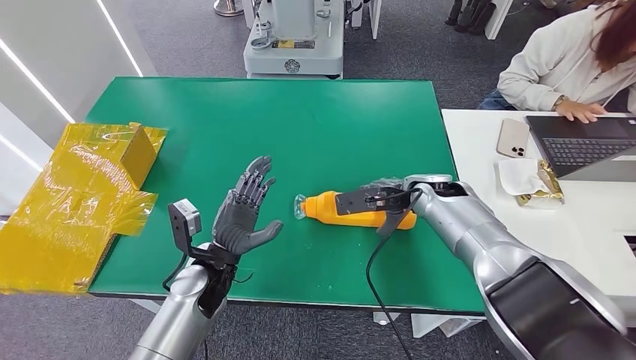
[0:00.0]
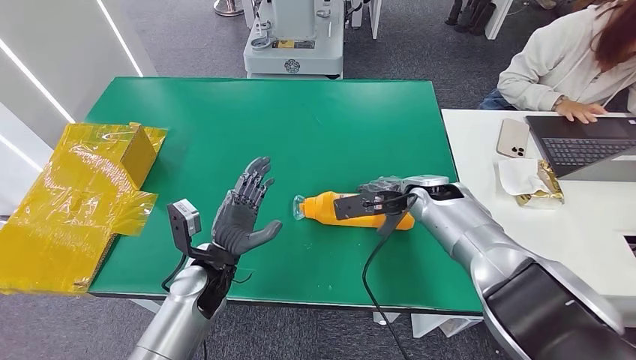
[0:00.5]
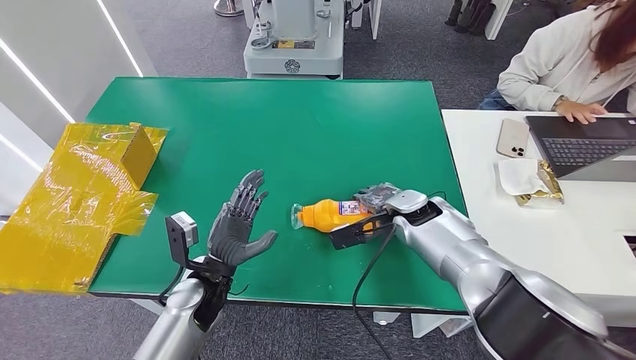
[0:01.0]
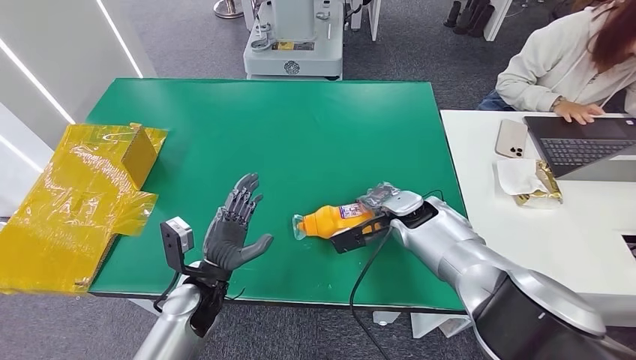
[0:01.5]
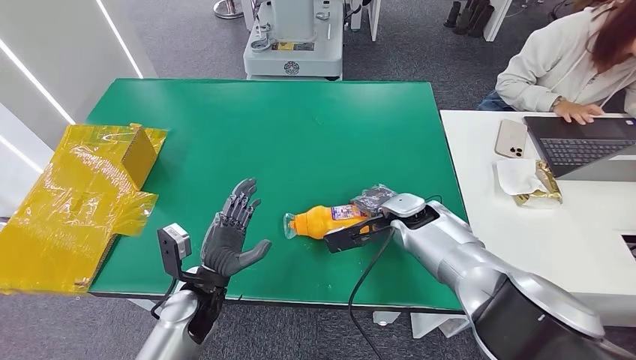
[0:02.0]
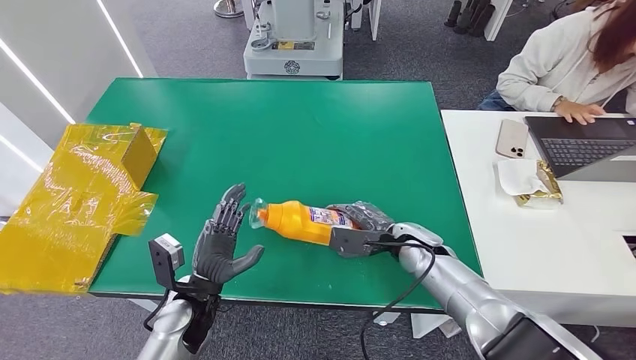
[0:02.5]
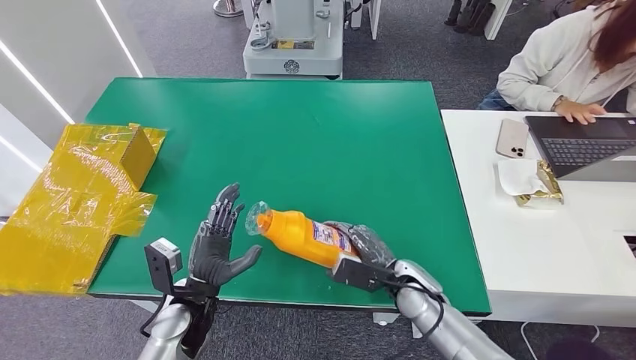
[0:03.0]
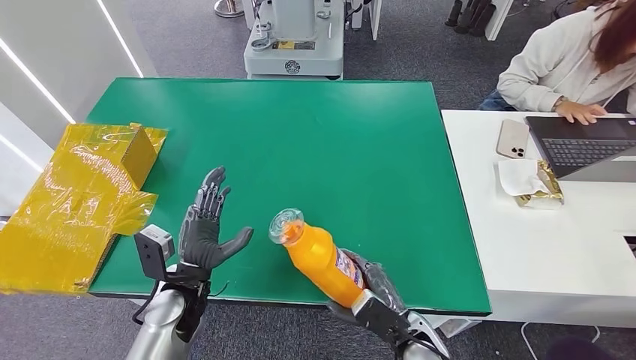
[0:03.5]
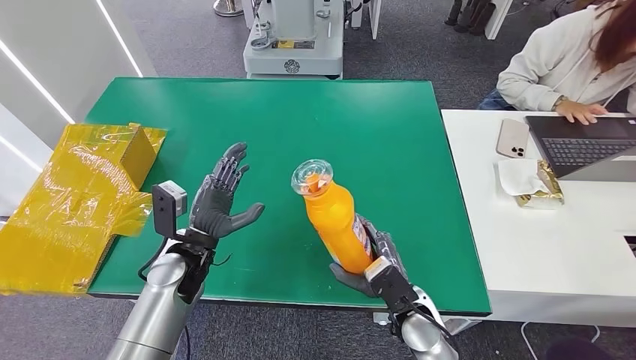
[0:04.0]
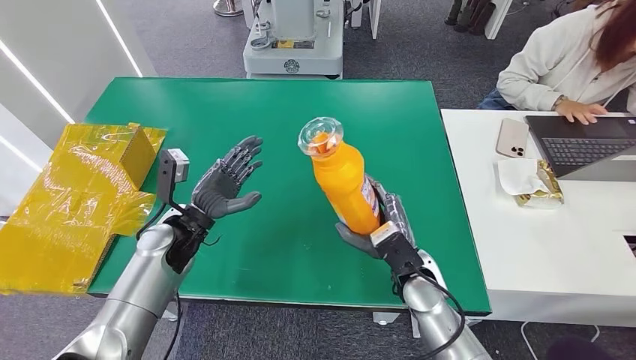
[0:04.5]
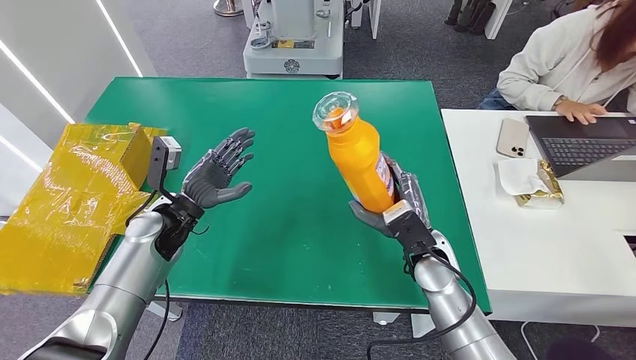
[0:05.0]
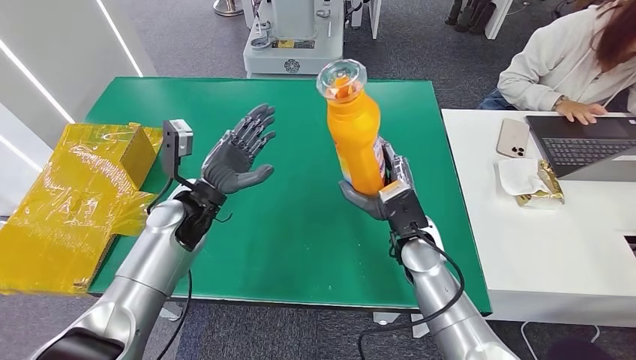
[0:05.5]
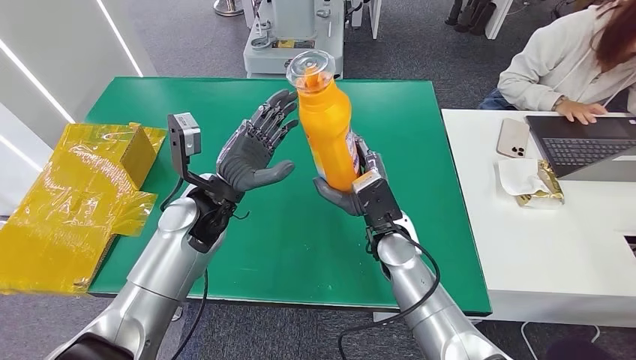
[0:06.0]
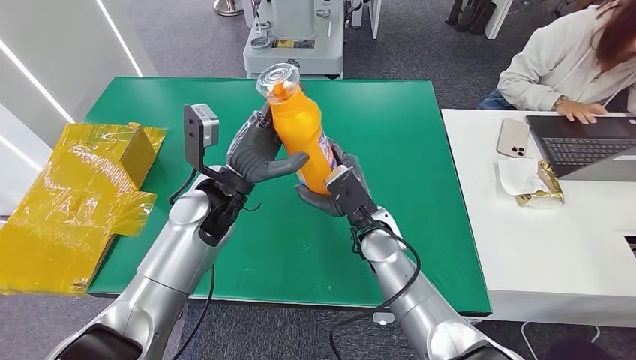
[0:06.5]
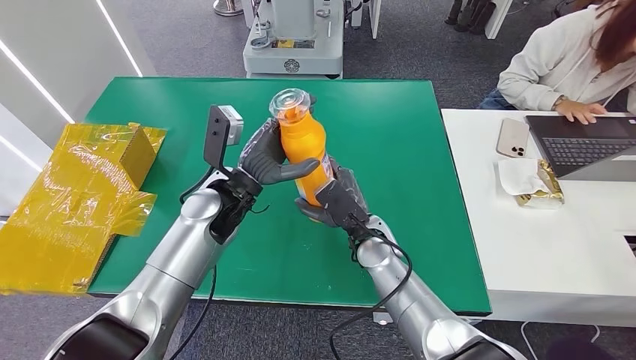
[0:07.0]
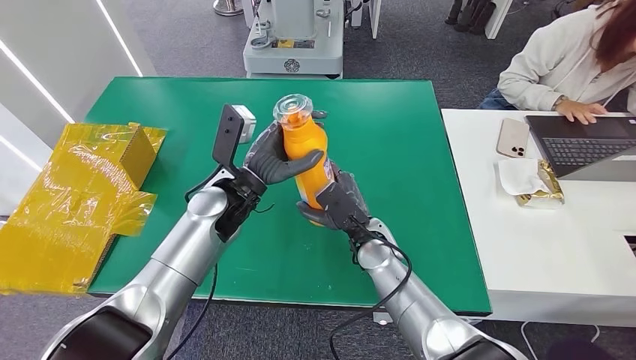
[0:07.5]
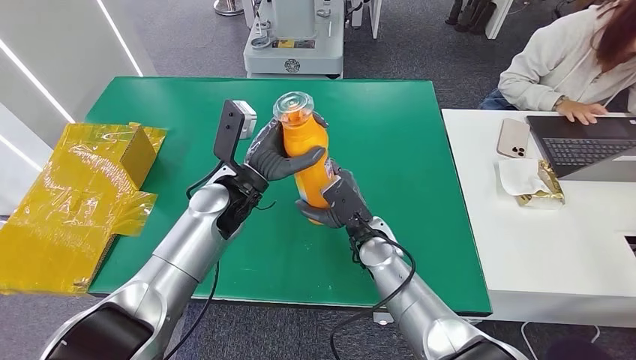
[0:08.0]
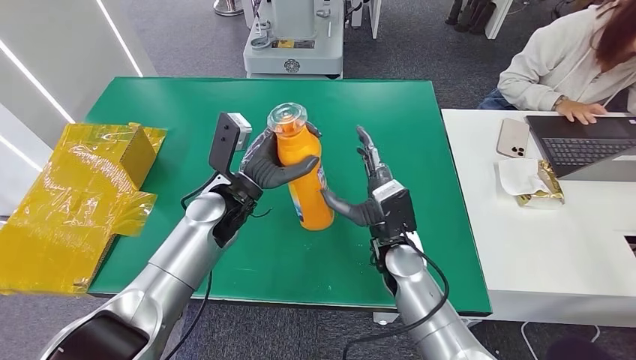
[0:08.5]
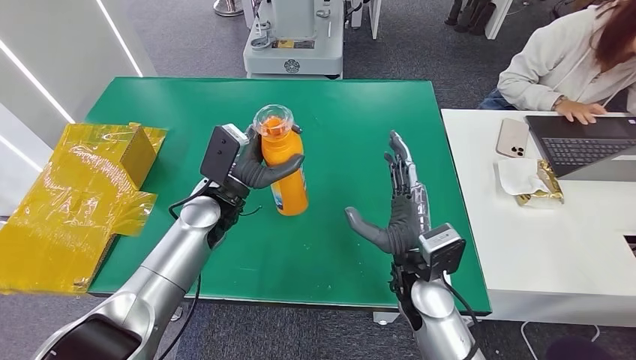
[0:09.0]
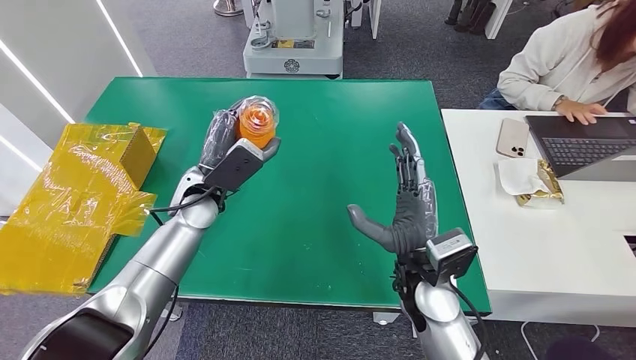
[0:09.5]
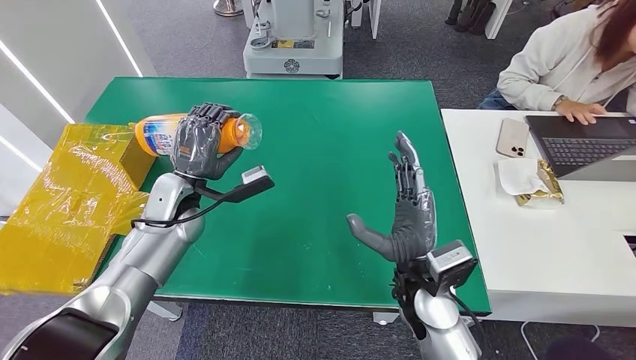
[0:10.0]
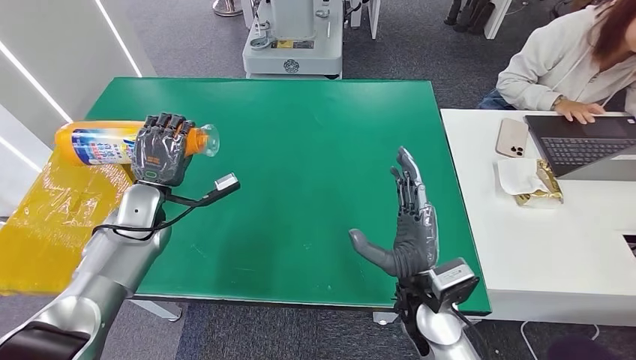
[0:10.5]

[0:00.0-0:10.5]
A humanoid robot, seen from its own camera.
Step, 0:00.0 to 0:02.5: Pick up the bottle from the table.
0:00.0 to 0:02.0: The right hand ends up about 5 cm from where it was.
0:02.0 to 0:04.0: The left hand heads forward, covering some 5 cm. The right hand shifts approximately 20 cm backward and downward.
0:04.0 to 0:06.5: The left hand goes roughly 15 cm upward, forward and to the right; the right hand shifts some 15 cm forward, upward and to the left.
0:06.5 to 0:08.5: There are only small adjustments of the hands.

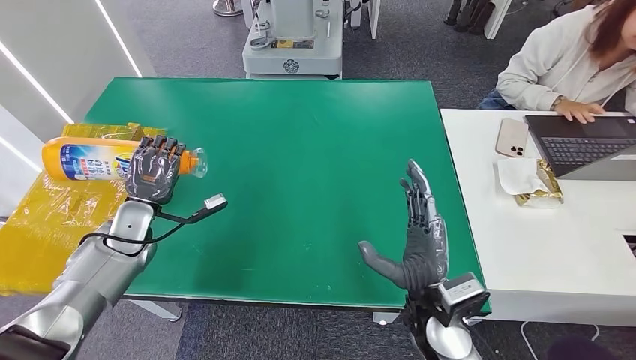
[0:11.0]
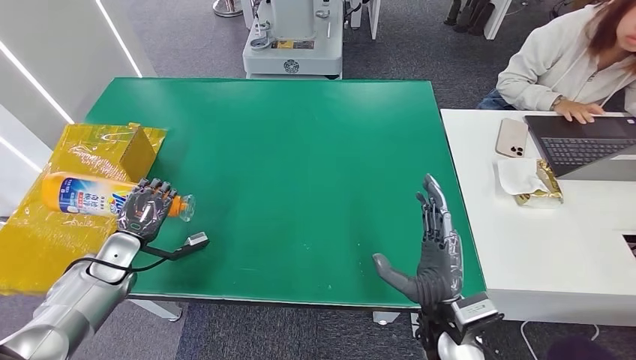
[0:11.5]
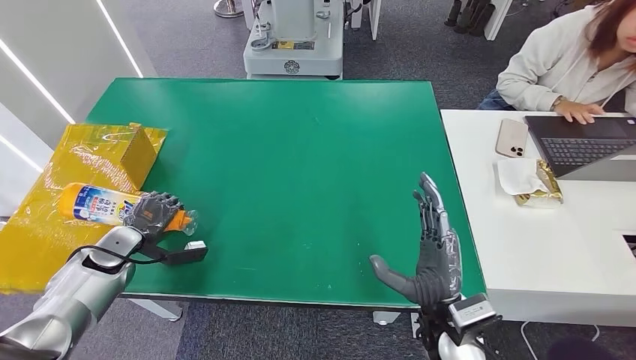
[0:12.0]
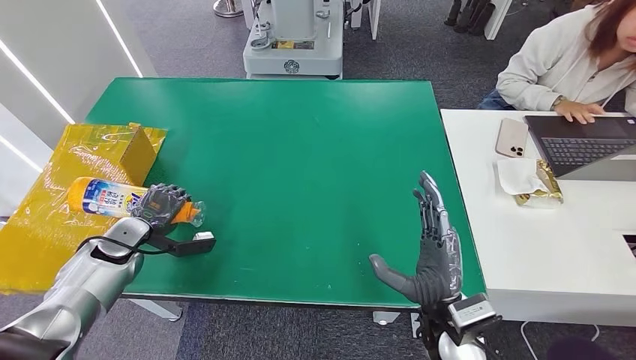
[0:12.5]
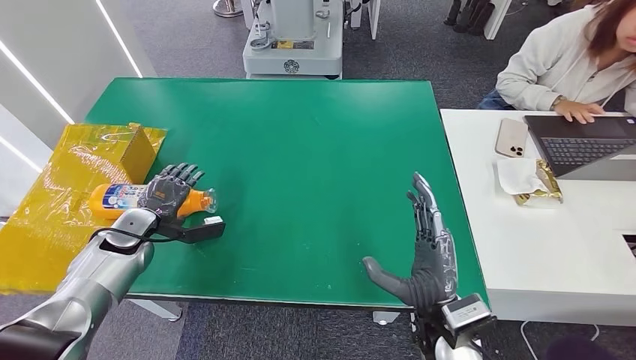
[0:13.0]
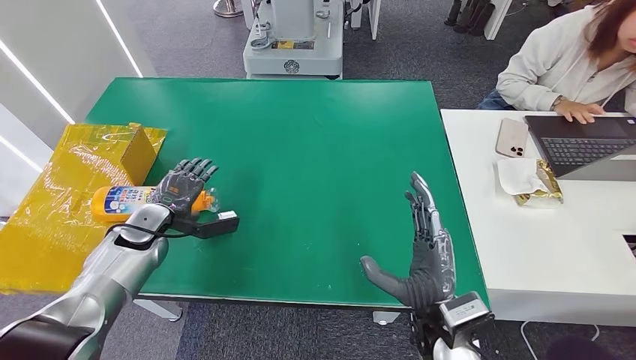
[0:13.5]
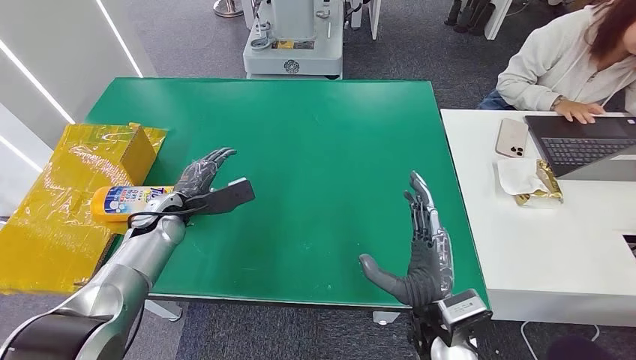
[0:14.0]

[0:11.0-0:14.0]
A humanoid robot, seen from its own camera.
Step, 0:11.0 to 0:14.0: Turn the bottle to the front side.
0:11.0 to 0:12.5: The left hand changes place by roughly 5 cm.
0:12.5 to 0:14.0: The left hand shifts about 10 cm to the right.

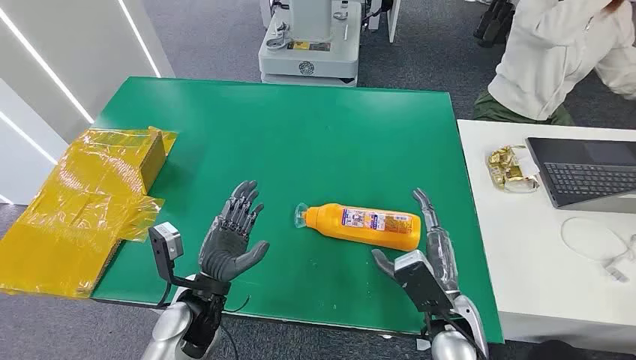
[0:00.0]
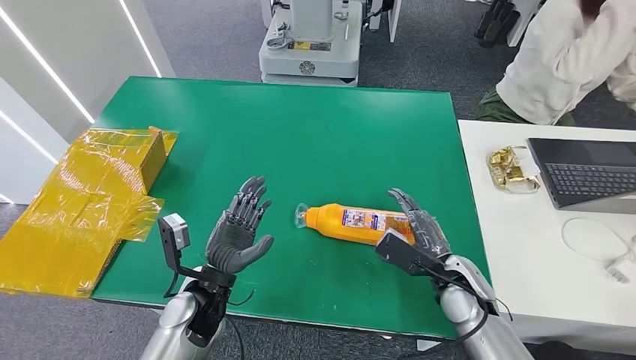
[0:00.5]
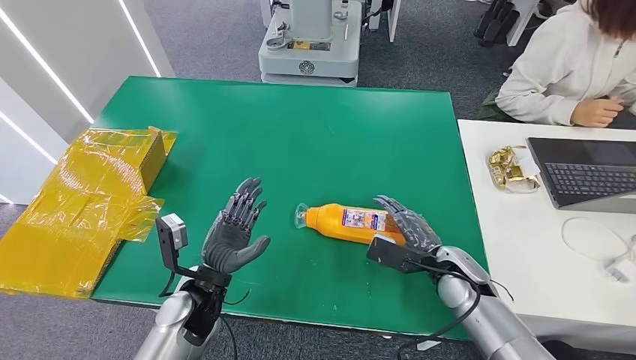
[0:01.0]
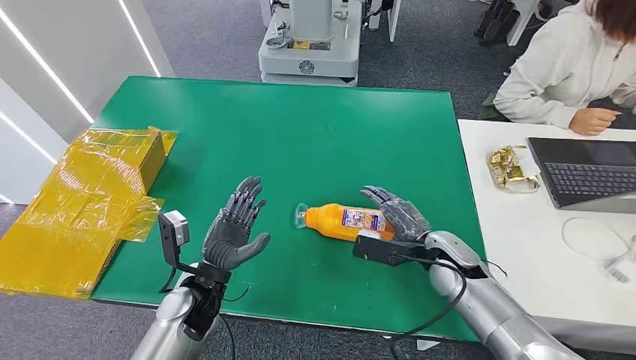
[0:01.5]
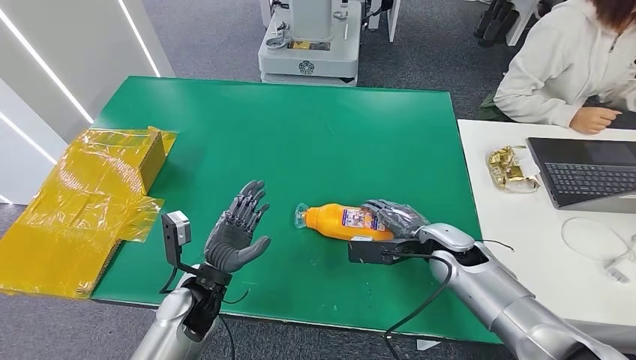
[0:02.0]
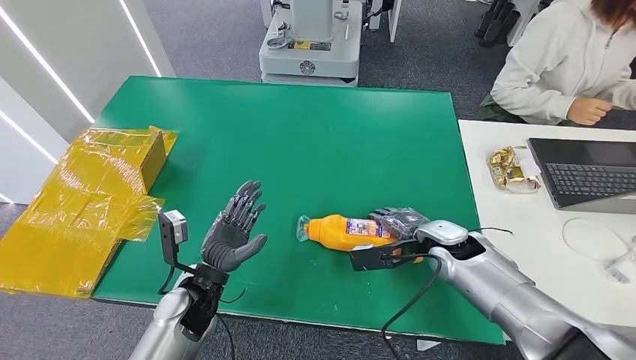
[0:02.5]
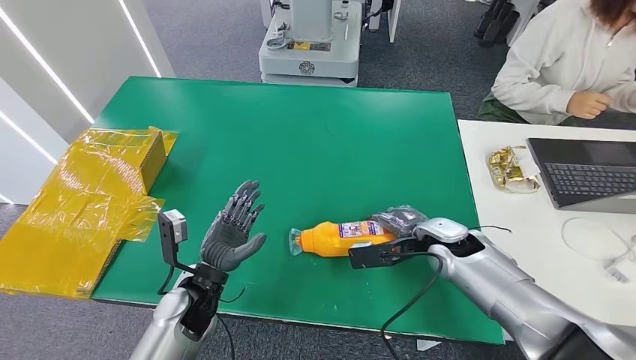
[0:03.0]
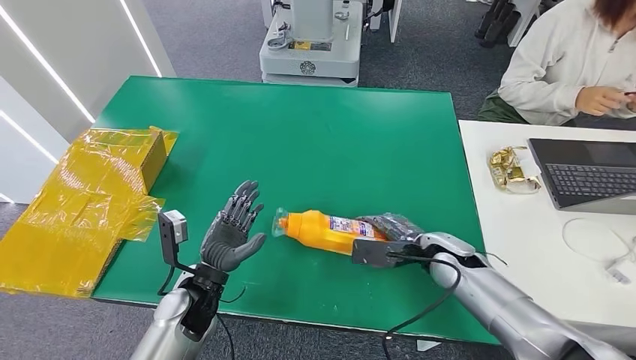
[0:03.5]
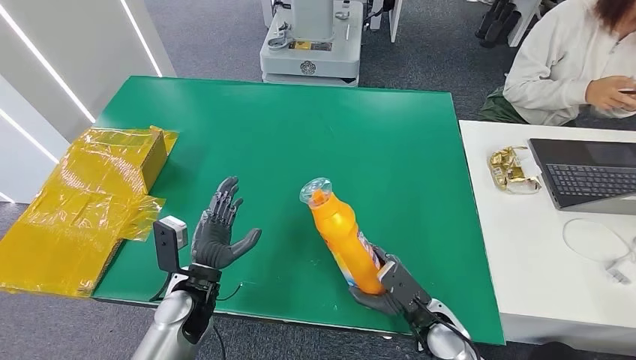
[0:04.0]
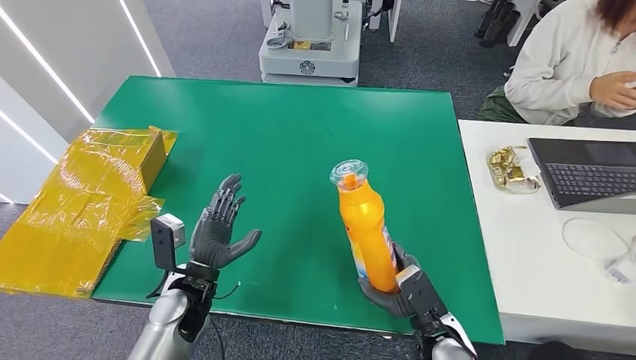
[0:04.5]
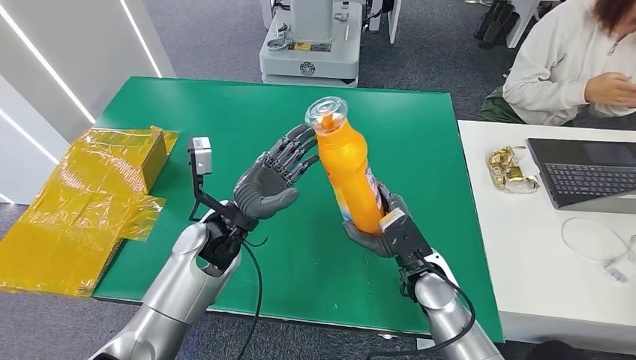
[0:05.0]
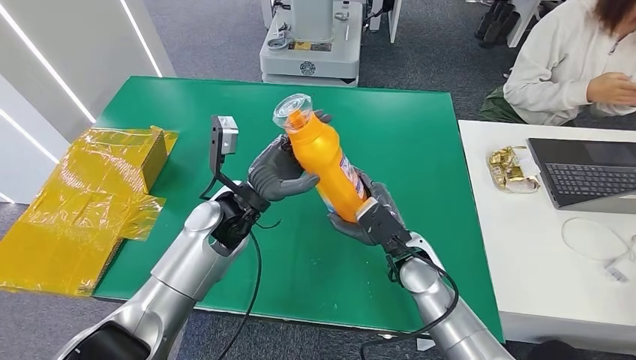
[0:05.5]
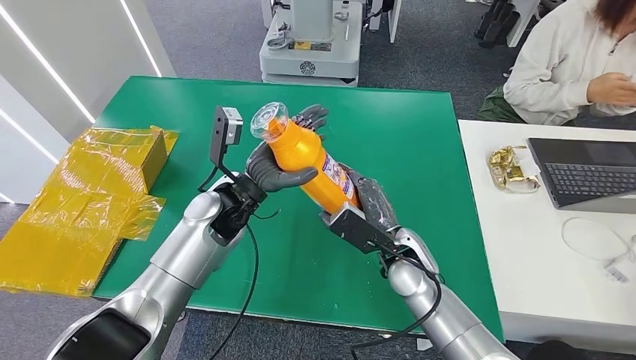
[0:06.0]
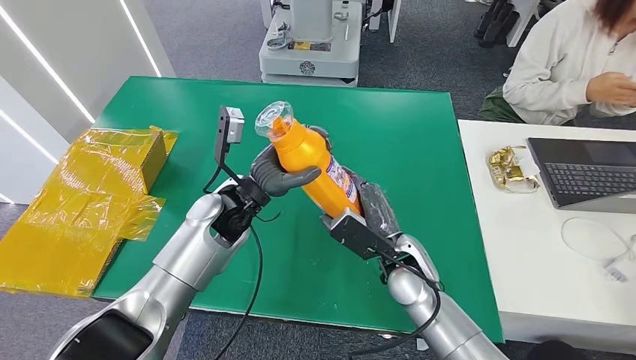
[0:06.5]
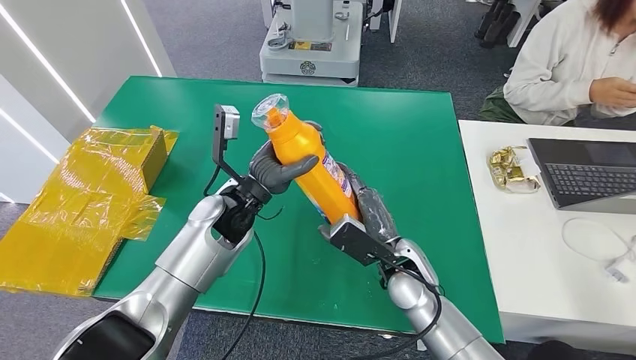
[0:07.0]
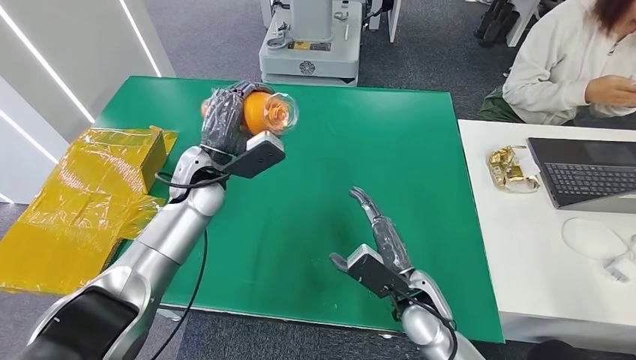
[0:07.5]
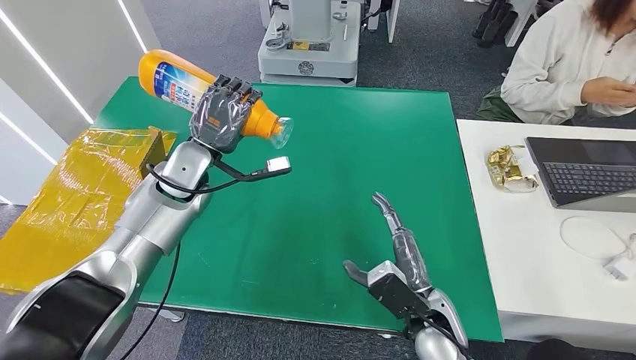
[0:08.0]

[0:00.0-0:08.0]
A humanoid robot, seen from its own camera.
Step, 0:00.0 to 0:04.0: Pick up the bottle from the table.
0:02.0 to 0:04.0: The right hand travels backward and downward by about 15 cm.
0:04.0 to 0:06.0: The left hand shifts some 20 cm forward, upward and to the right; the right hand heads upward, forward and to the left, covering approximately 15 cm.
